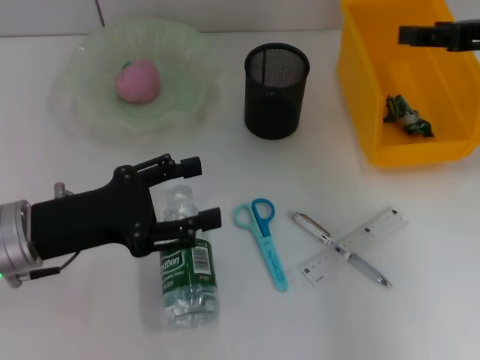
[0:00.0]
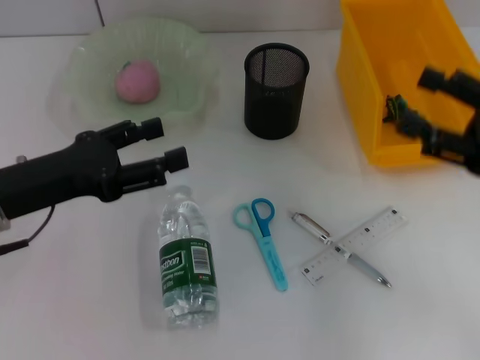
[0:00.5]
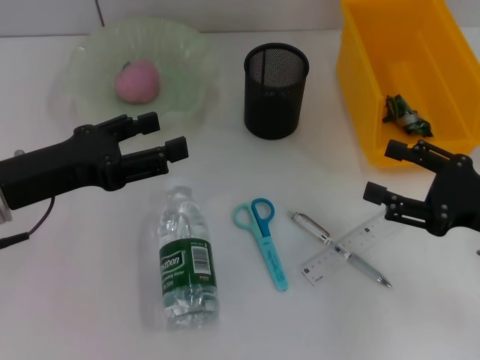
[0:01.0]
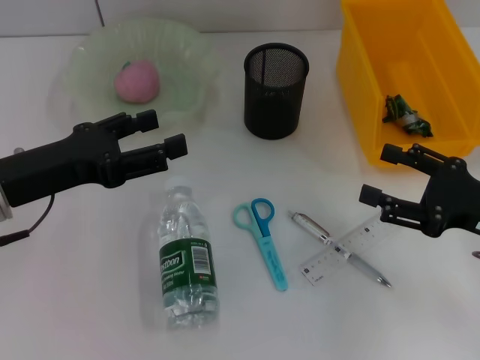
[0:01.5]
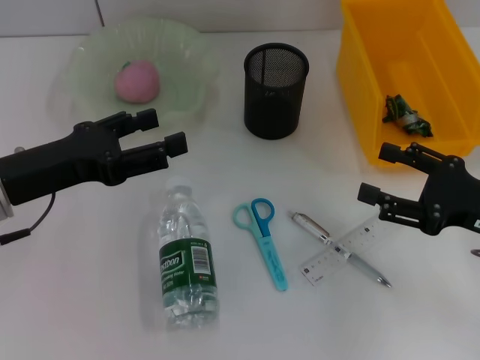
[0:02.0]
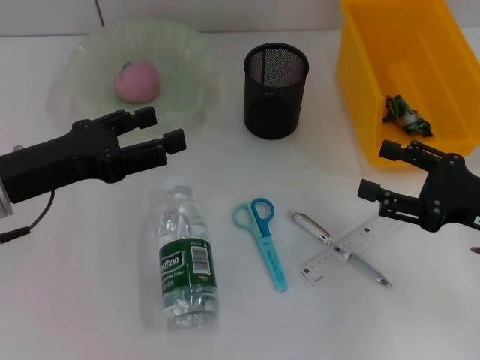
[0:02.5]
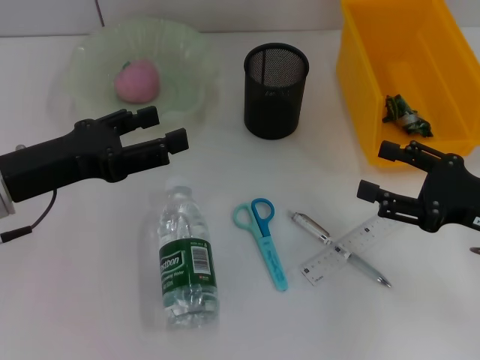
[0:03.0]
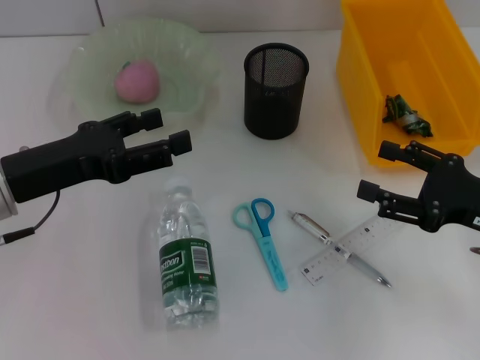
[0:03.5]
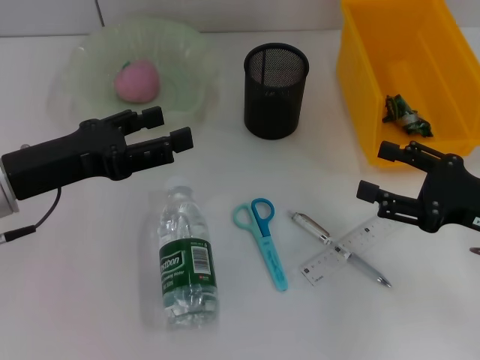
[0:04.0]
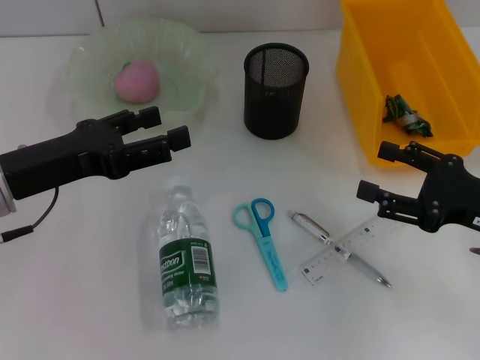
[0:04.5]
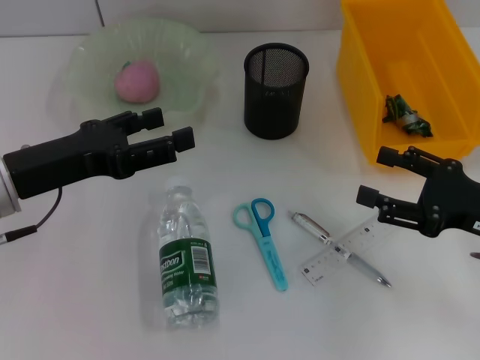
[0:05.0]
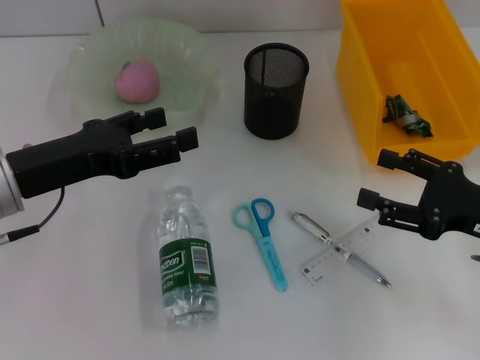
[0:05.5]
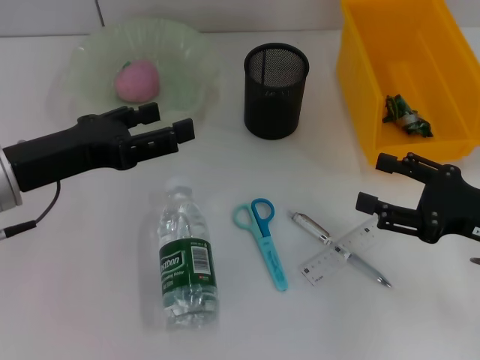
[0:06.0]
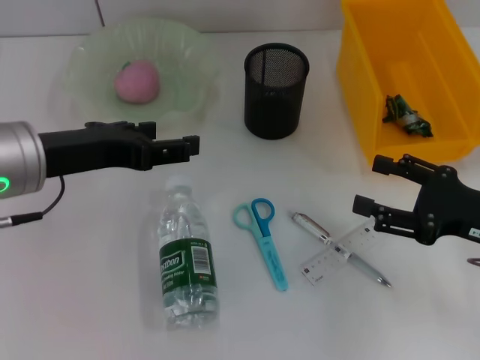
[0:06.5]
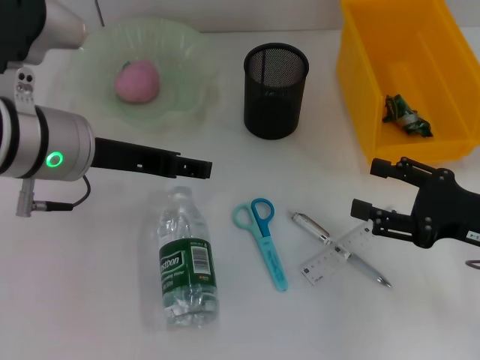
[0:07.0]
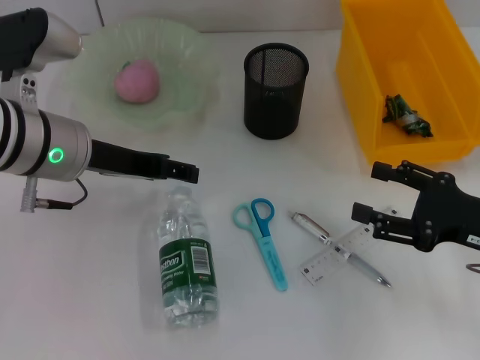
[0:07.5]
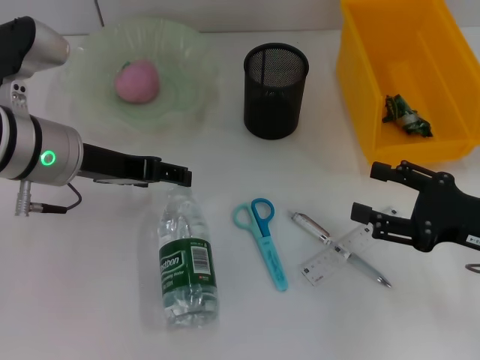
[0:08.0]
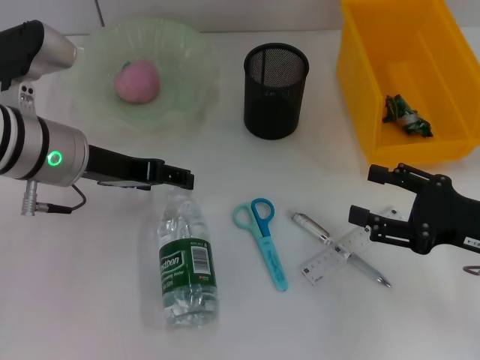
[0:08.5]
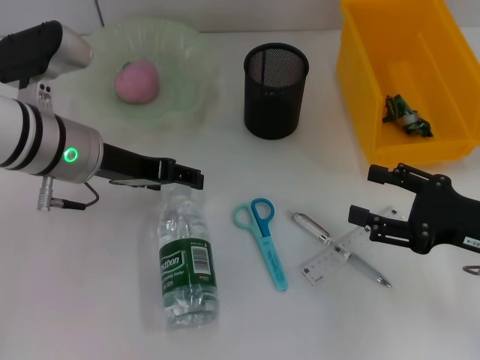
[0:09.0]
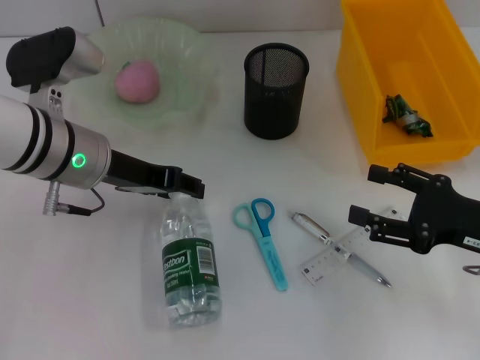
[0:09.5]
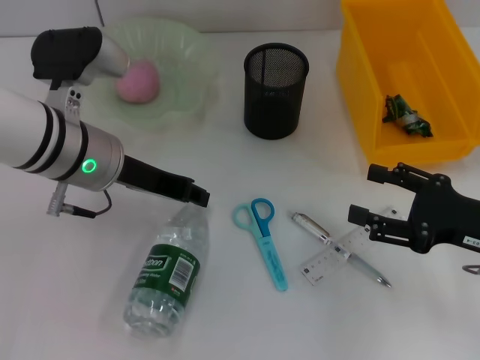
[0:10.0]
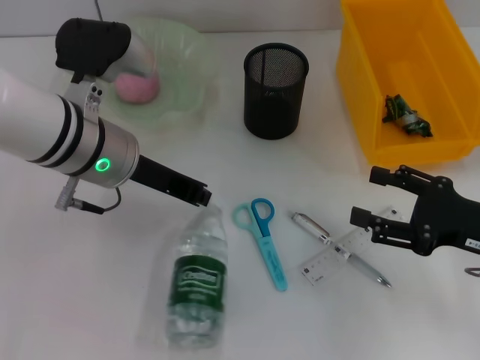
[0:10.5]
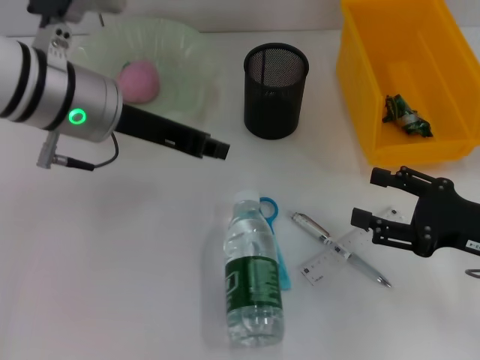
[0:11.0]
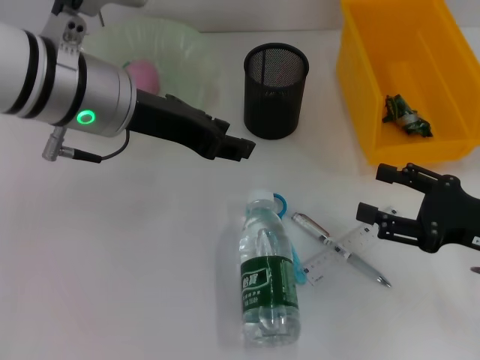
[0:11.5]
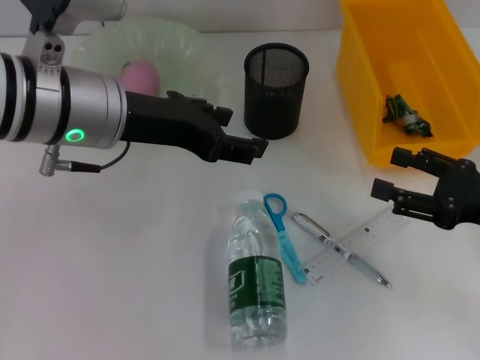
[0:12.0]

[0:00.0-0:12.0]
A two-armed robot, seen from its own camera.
0:00.0 to 0:02.0: The right gripper moves downward and backward, some 15 cm.
0:02.0 to 0:04.0: The two grippers keep their place.
0:04.0 to 0:06.0: The grippers stay close to where they were, moving slightly.
0:06.0 to 0:08.0: The left gripper goes some 5 cm forward.
0:08.0 to 0:10.0: The left gripper closes up.
0:10.0 to 0:12.0: The left gripper moves upward, some 5 cm, and opens up.

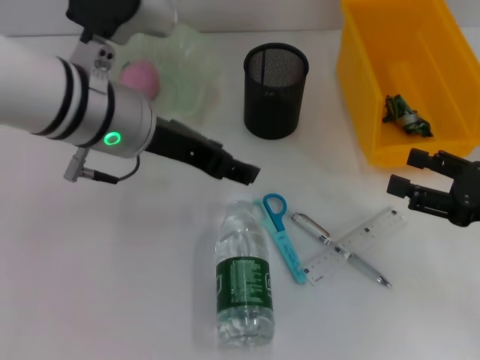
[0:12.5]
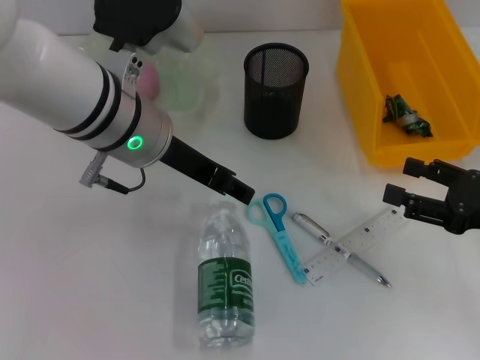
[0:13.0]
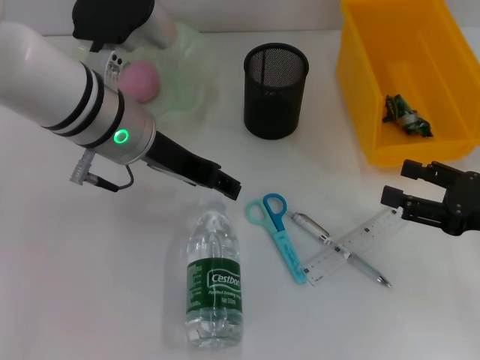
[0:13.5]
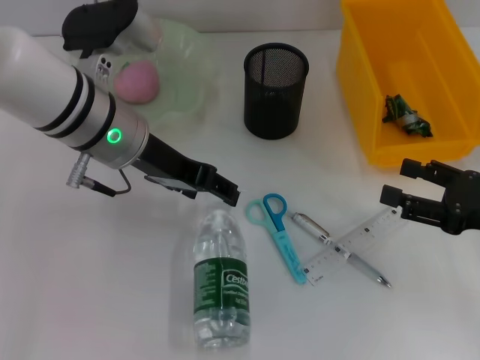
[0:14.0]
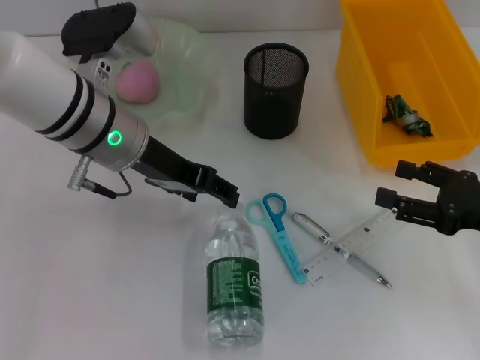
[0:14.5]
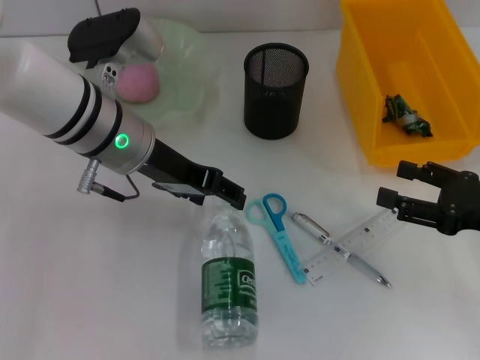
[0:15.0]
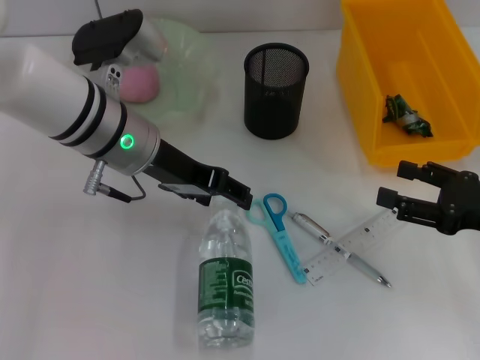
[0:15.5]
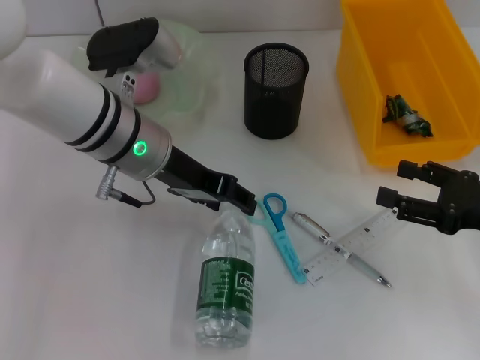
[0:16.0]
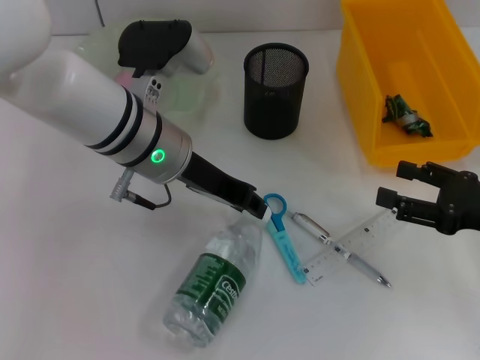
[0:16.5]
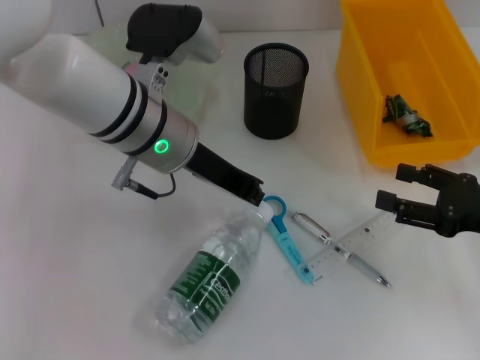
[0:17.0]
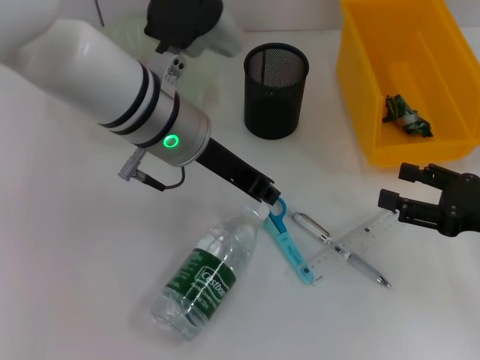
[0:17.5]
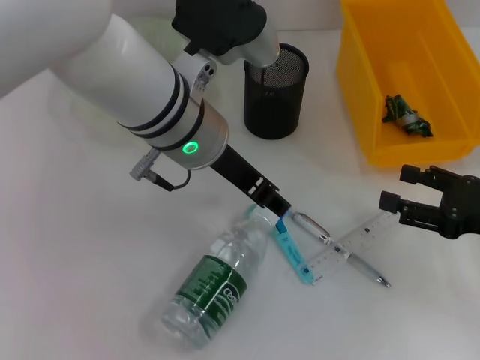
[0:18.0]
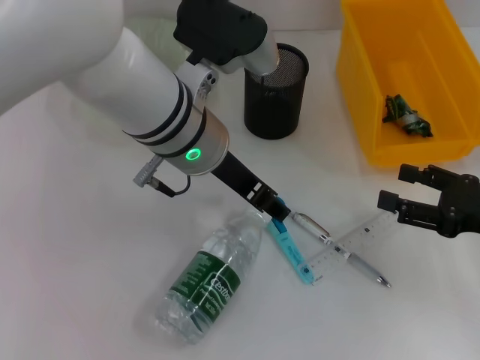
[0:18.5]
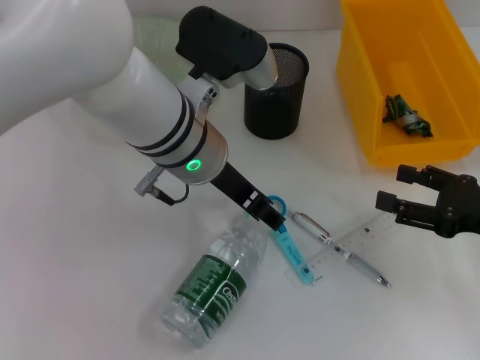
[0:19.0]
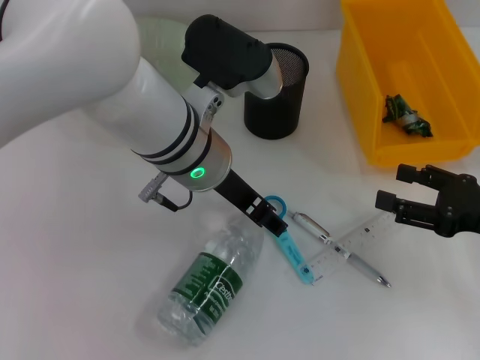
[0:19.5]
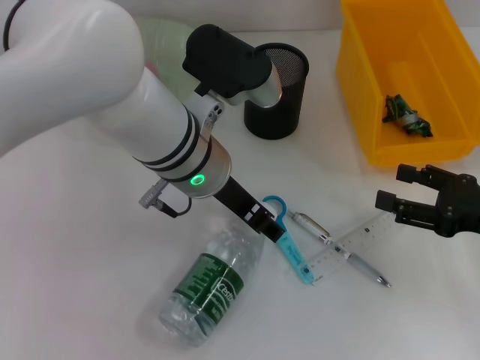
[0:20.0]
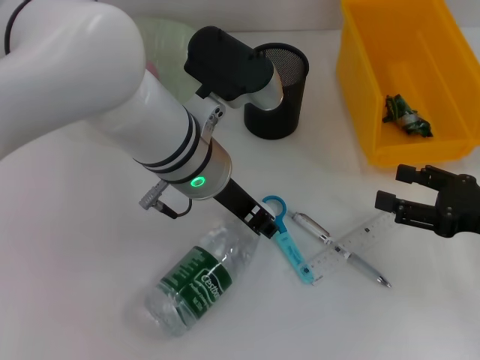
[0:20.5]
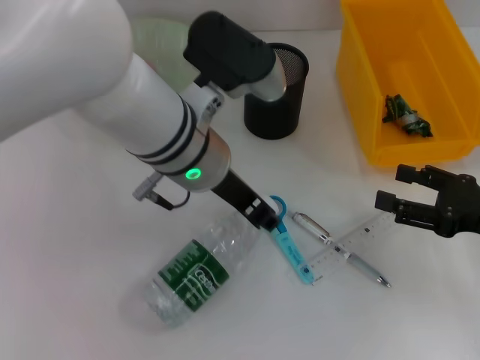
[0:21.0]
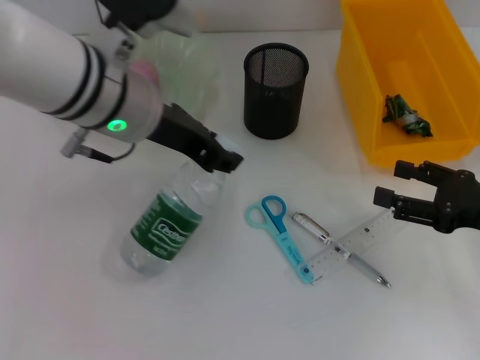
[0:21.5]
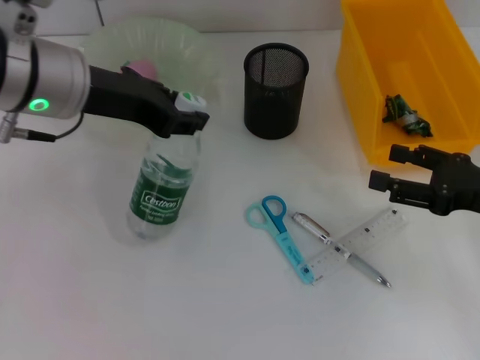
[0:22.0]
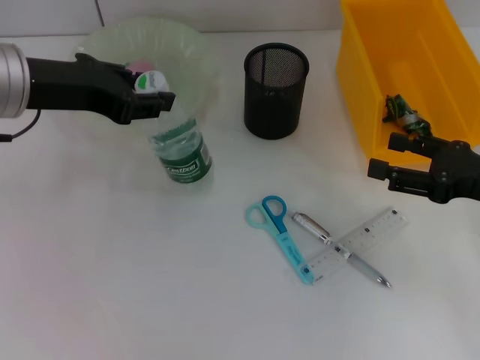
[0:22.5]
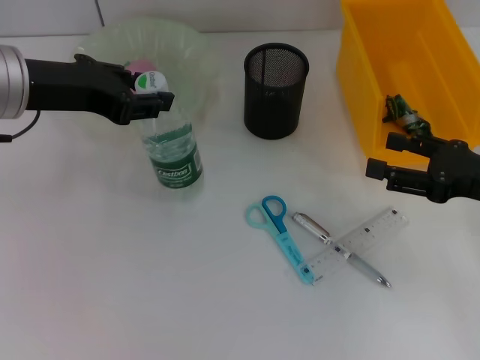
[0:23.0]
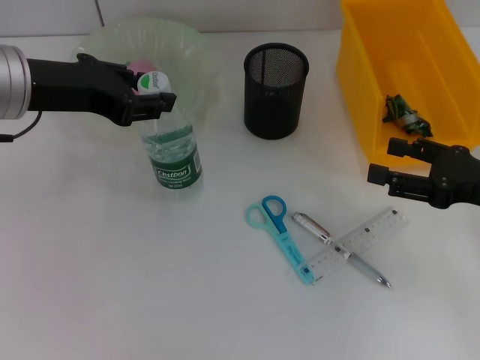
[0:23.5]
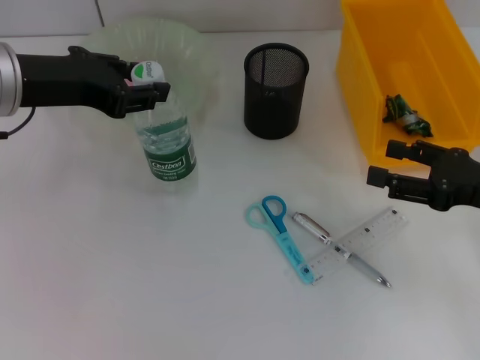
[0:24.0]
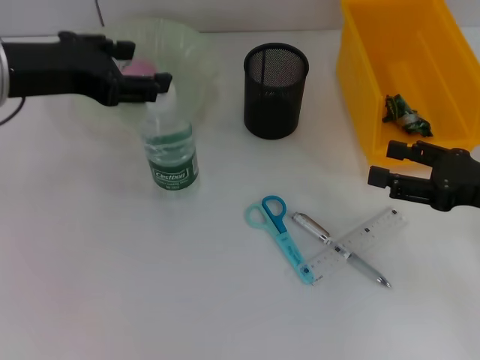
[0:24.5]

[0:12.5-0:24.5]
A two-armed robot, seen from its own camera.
Step, 0:12.5 to 0:20.5: Grab the water bottle with the left hand.
Step, 0:21.0 to 0:24.0: Place the water bottle on the table with the left hand.
0:14.5 to 0:16.5: The grippers make only small movements.
0:16.5 to 0:18.5: The left gripper ends up approximately 5 cm from where it was, and closes, then reopens.
0:18.5 to 0:20.5: The left gripper closes up.
0:20.5 to 0:22.5: The left gripper moves to the left and upward, about 20 cm.
0:22.5 to 0:24.5: The grippers make only small movements.

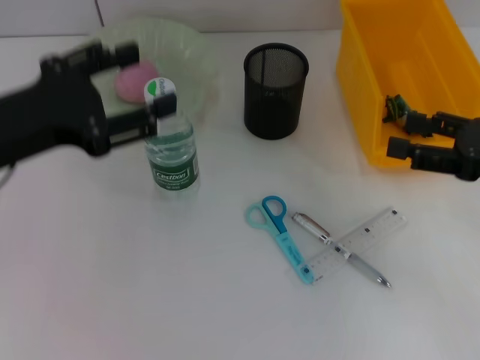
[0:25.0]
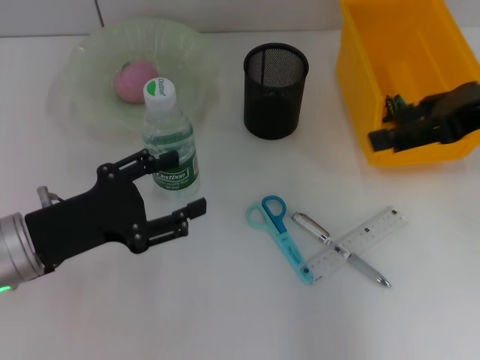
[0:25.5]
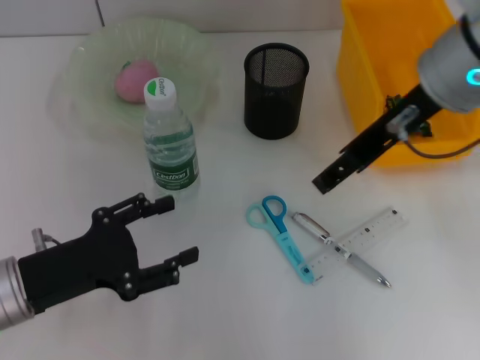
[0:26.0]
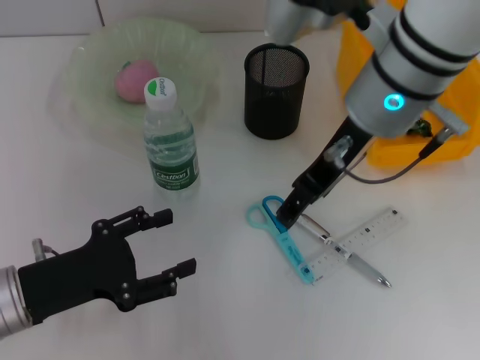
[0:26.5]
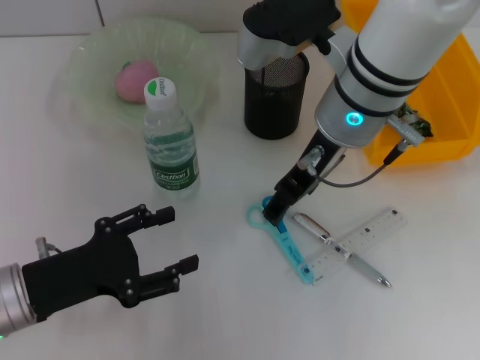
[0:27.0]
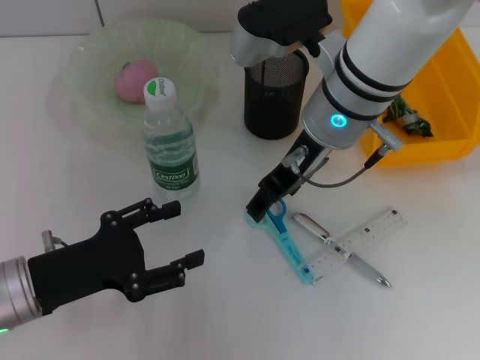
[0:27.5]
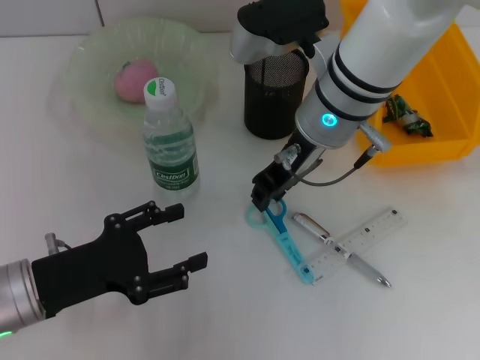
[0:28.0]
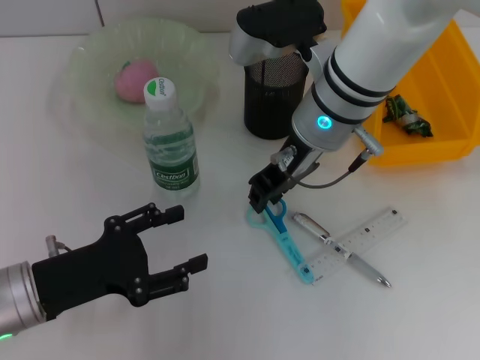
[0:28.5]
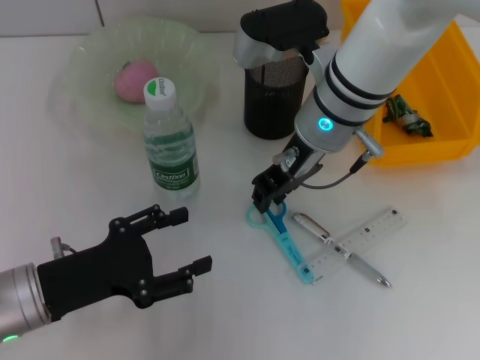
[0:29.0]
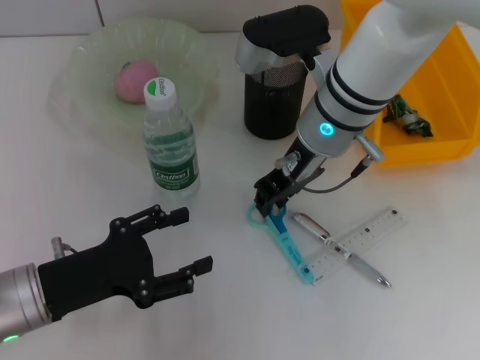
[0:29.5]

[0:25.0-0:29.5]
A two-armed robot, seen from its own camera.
0:25.0 to 0:27.0: The left gripper goes roughly 15 cm downward. Meanwhile the right gripper is displaced to the left by some 25 cm.
0:27.0 to 0:29.5: The right gripper closes up.
